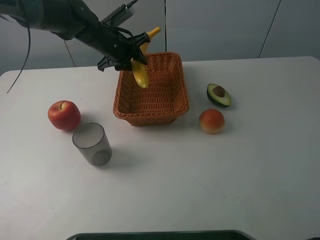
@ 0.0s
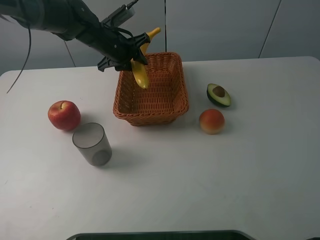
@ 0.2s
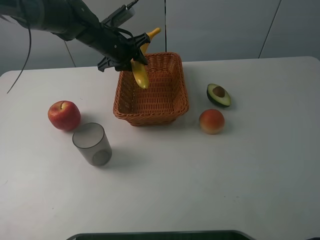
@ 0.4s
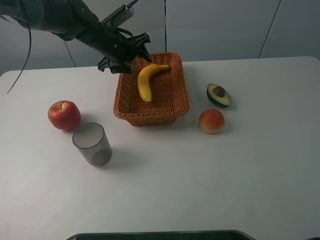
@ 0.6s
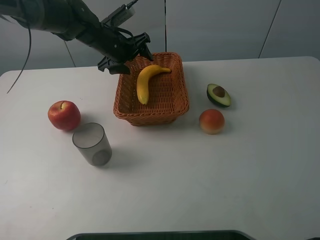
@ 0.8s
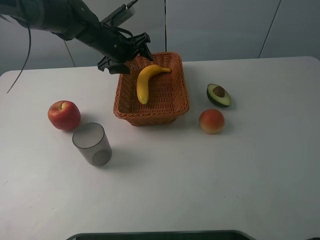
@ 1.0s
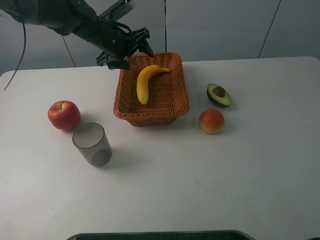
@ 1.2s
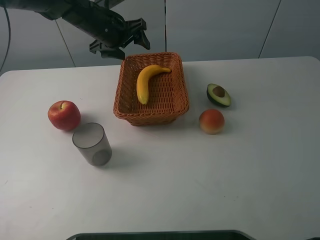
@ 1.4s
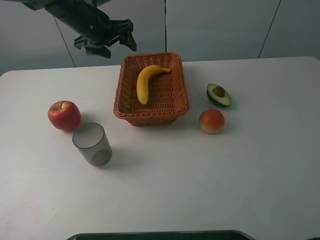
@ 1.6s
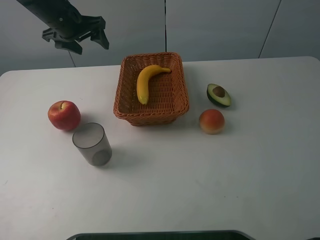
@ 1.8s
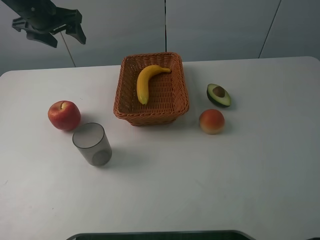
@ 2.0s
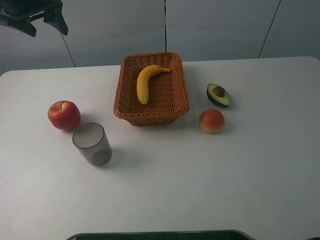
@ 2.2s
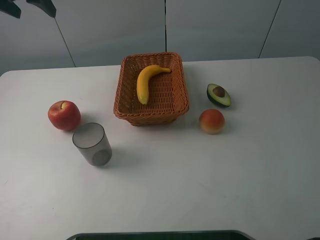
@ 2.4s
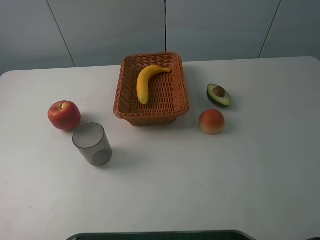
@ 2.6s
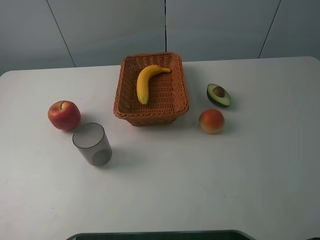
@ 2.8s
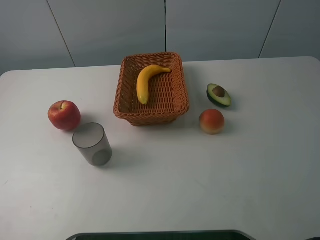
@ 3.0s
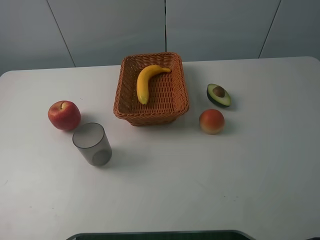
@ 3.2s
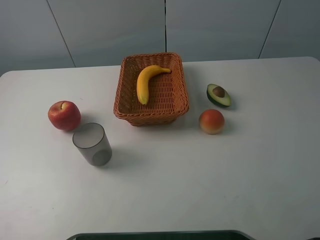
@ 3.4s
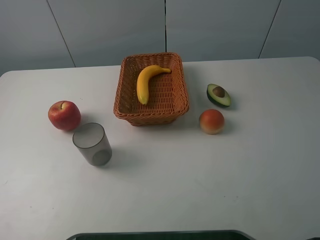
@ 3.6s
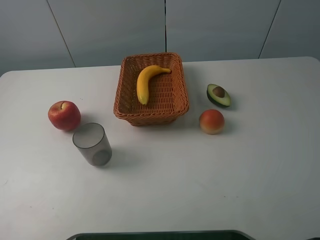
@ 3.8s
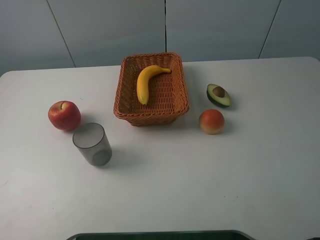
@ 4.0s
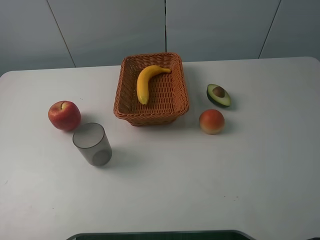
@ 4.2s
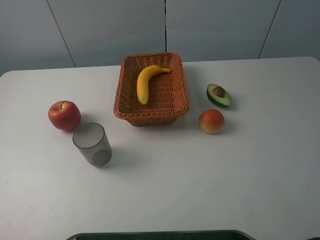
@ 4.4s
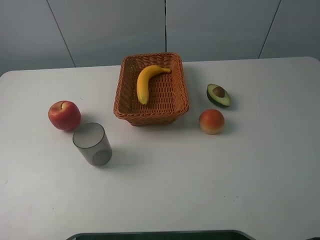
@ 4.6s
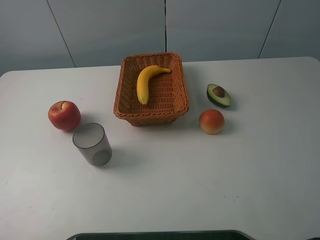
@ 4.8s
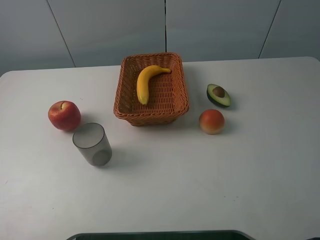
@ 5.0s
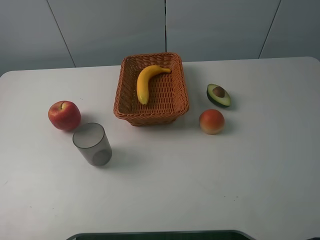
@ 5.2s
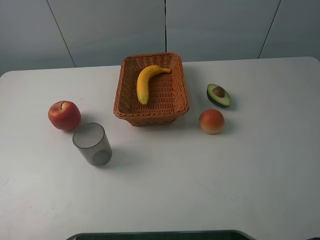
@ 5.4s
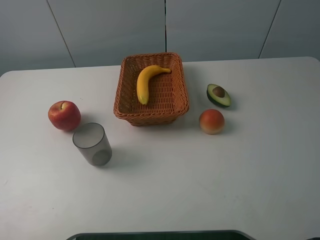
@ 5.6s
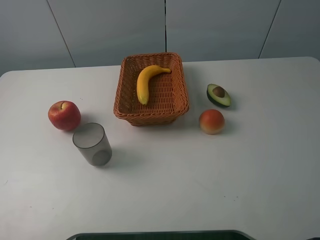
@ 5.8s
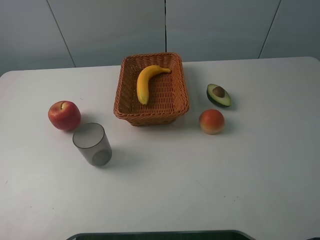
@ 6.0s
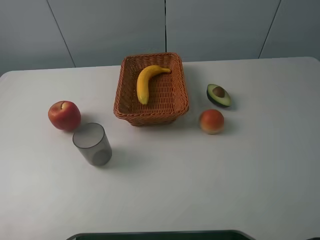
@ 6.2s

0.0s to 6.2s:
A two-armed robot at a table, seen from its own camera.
0.0s to 1.6s: The left gripper shifts by about 5 cm, and opens.
1.6s to 3.2s: The left gripper travels upward, backward and to the left by approximately 30 cm.

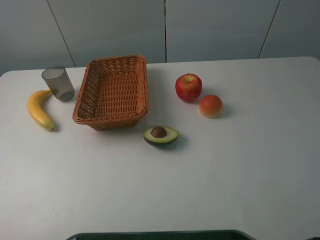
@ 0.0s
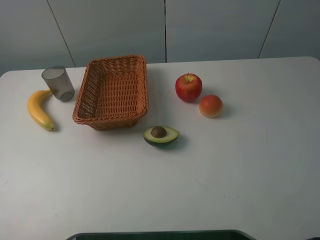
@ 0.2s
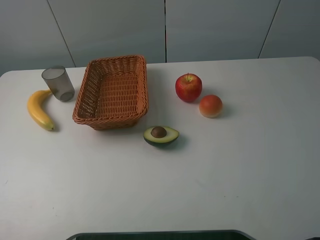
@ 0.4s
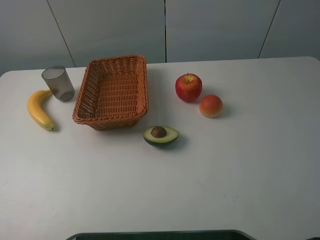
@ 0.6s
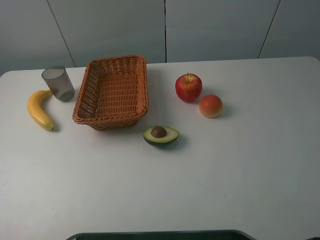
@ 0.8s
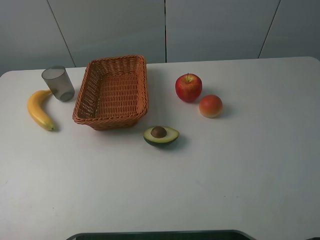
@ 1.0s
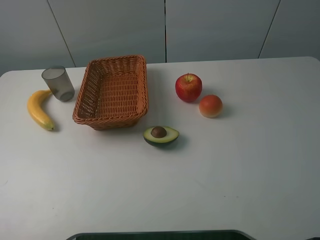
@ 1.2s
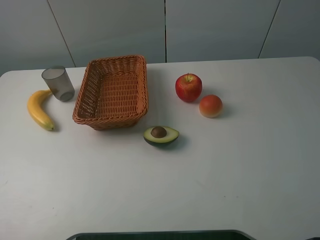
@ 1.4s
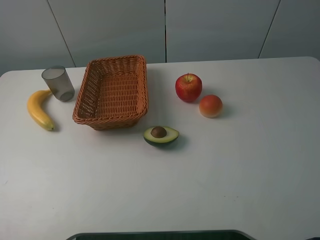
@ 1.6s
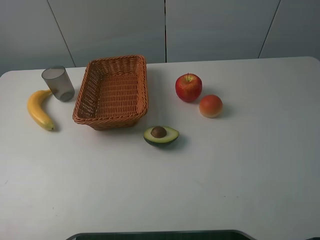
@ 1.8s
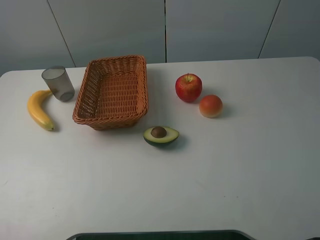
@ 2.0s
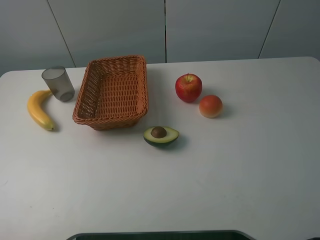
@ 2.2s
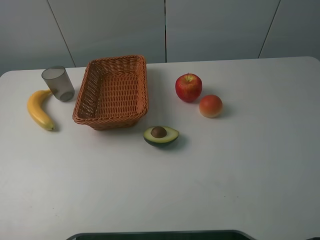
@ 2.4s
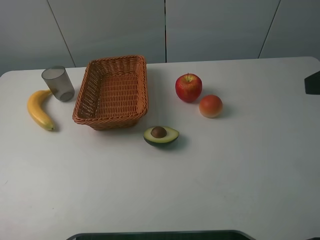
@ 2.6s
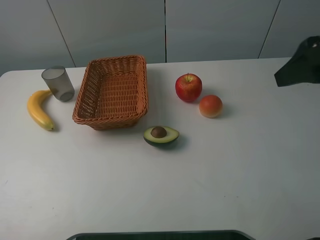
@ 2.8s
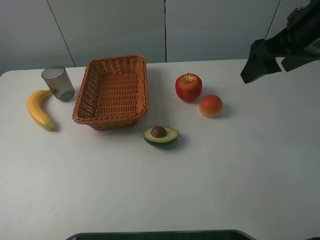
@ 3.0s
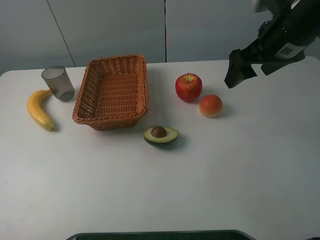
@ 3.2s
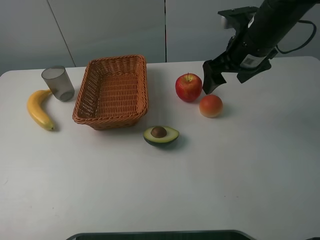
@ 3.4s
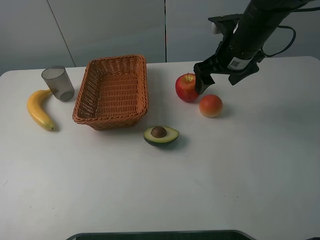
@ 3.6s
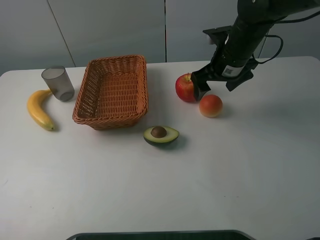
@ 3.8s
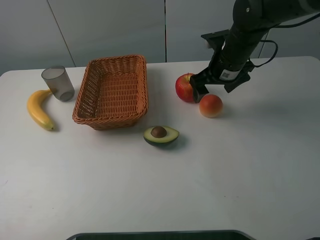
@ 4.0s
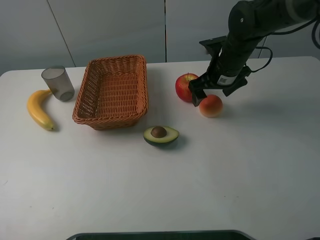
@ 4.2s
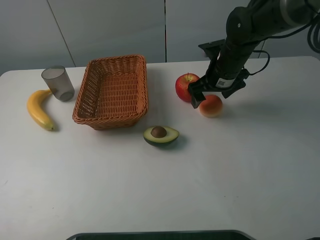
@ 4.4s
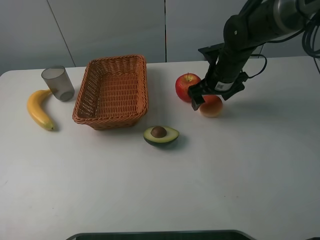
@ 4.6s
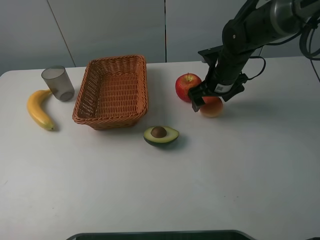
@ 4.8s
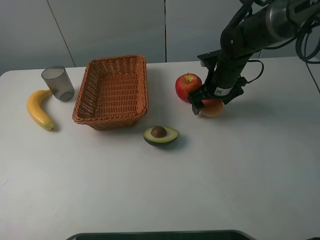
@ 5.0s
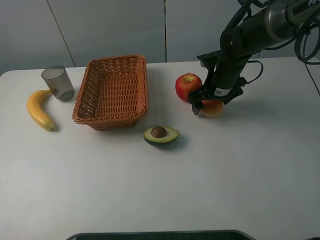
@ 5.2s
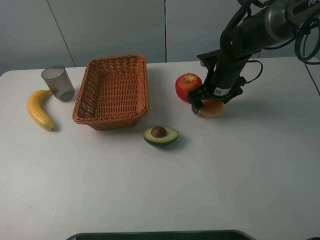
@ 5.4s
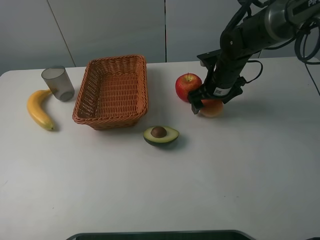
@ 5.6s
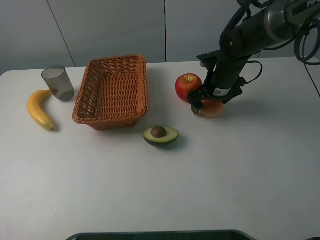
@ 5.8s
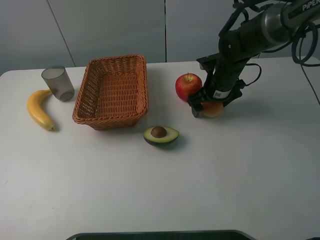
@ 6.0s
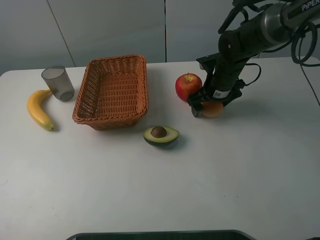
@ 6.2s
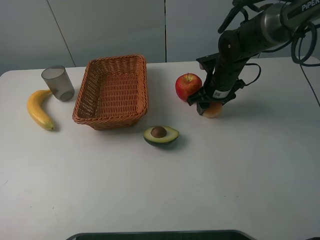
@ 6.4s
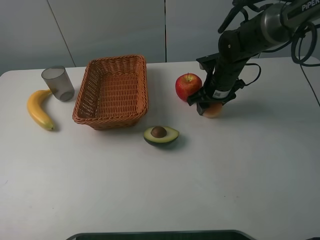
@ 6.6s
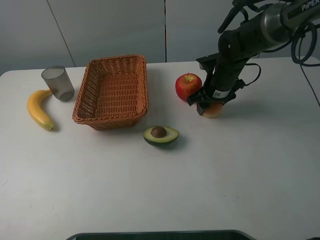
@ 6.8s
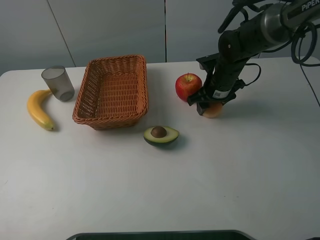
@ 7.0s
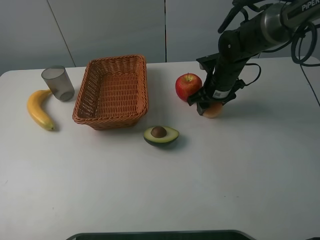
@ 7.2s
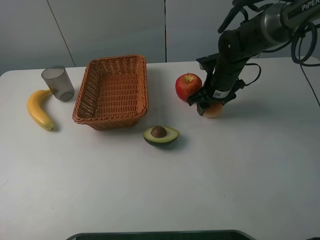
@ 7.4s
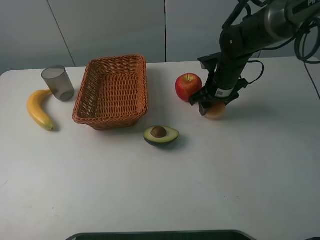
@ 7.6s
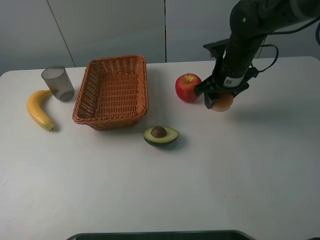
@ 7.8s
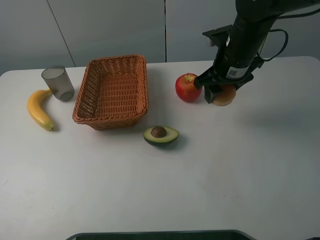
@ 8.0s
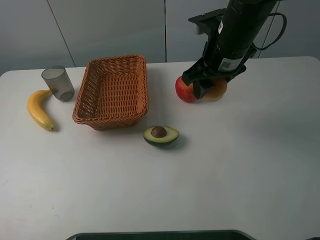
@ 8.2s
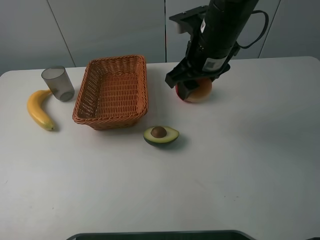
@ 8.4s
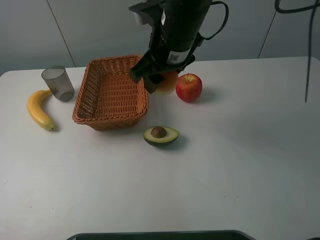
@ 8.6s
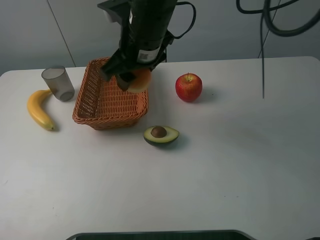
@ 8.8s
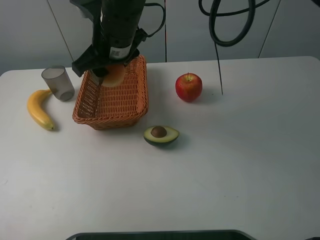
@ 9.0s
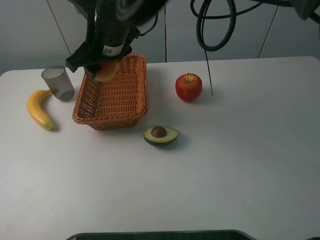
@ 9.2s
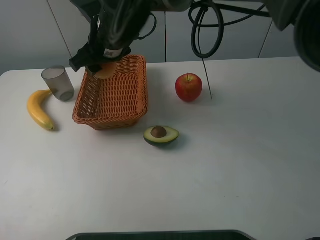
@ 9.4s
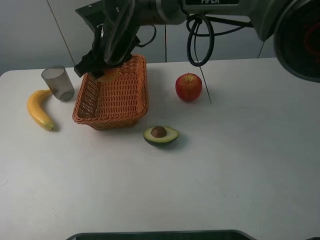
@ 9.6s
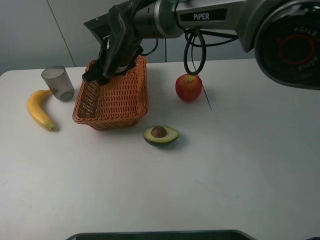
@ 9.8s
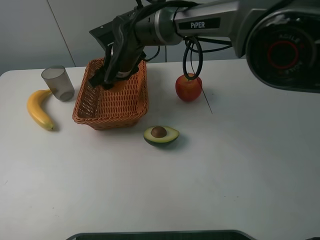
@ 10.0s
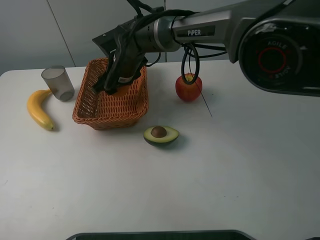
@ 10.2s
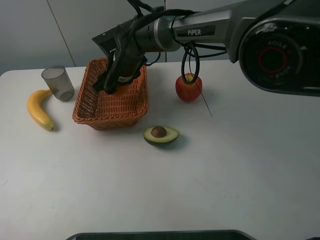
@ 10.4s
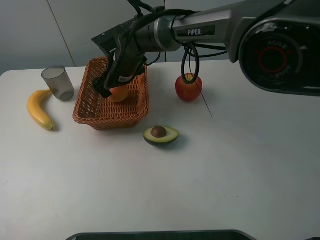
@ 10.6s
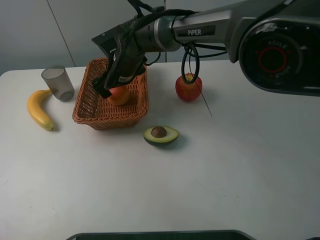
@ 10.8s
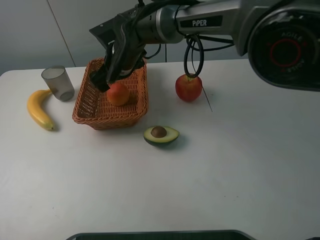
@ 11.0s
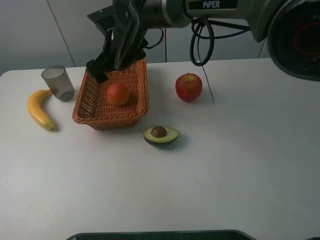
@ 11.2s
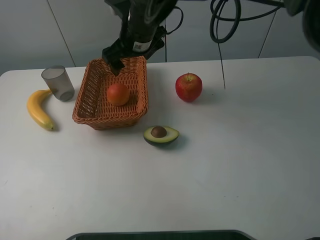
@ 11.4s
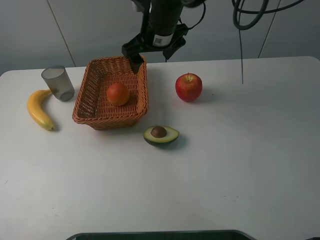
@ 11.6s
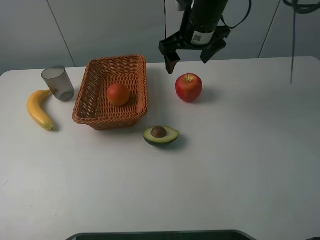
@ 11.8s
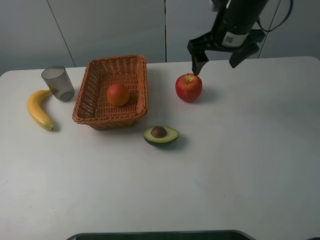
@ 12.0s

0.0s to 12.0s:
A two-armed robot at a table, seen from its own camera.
0.0s to 1.6s: The two grippers keep their place.
1.6s to 3.0s: The right gripper moves forward, roughly 25 cm.
3.0s to 4.4s: The right gripper goes roughly 20 cm downward, forward and to the left.
4.4s to 6.0s: The grippers make only small movements.
6.0s to 7.6s: The right gripper closes up.
7.6s to 9.0s: The right gripper heads to the left and upward, covering roughly 25 cm.
9.0s to 10.4s: The right gripper shifts about 10 cm downward and forward.
10.4s to 12.0s: The right gripper shifts about 25 cm to the right and upward, and opens its fingers.

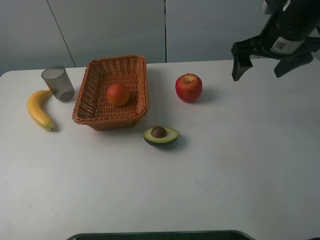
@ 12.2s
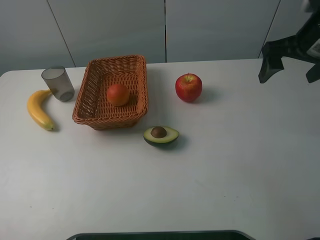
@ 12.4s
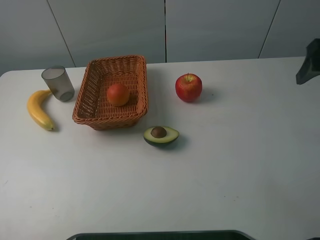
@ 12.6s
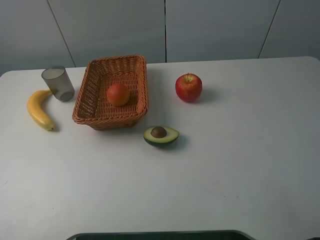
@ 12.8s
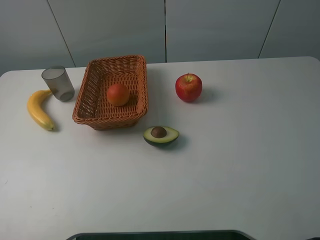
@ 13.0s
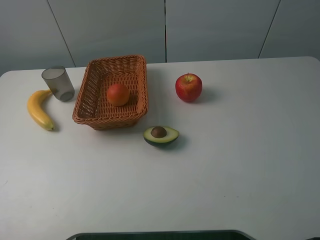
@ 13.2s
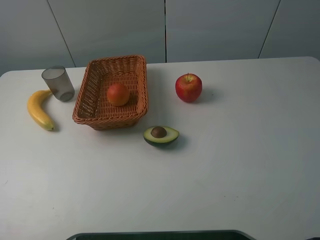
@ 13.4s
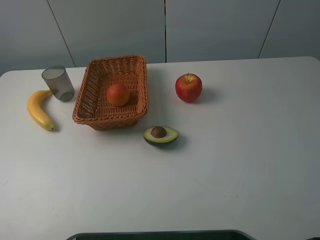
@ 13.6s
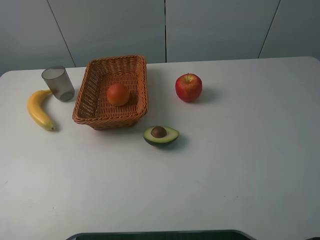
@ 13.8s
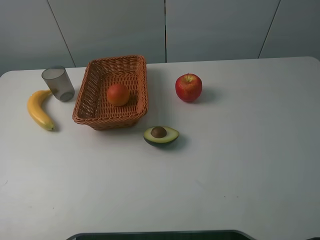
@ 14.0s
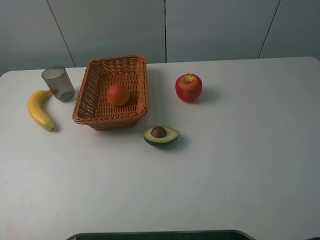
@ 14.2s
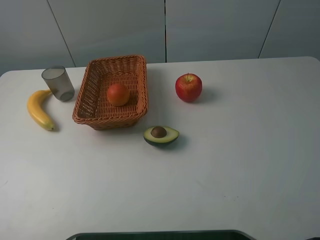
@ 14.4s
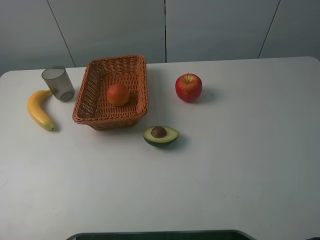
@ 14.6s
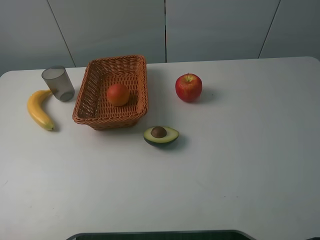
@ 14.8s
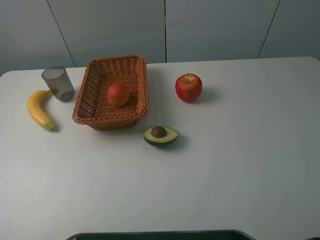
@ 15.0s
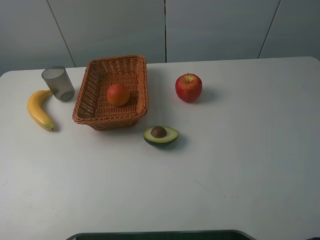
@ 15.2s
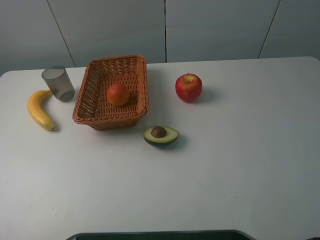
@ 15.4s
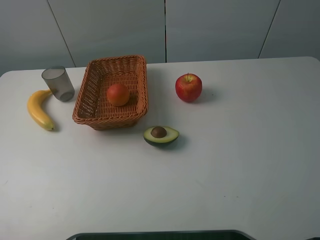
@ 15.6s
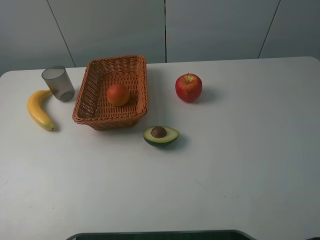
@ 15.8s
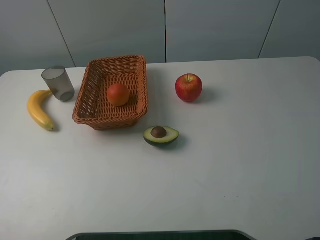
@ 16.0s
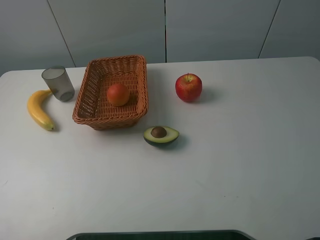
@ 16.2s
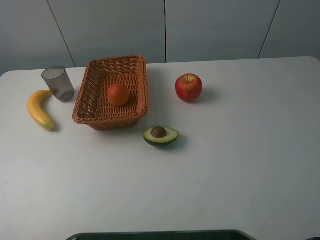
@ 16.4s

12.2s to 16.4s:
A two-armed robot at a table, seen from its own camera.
12.2s to 13.6s: The right gripper goes some 30 cm backward.
15.0s to 16.4s: The two grippers keep their place.
